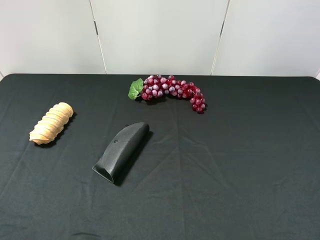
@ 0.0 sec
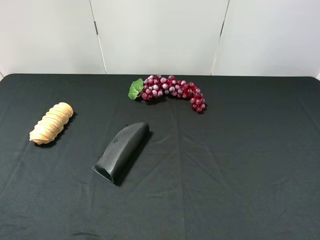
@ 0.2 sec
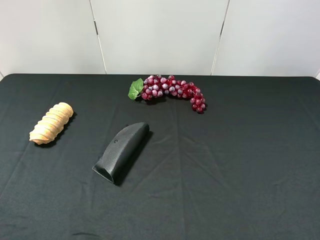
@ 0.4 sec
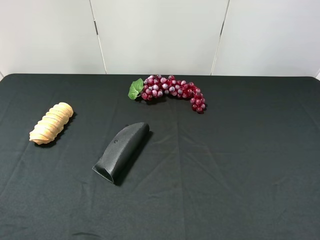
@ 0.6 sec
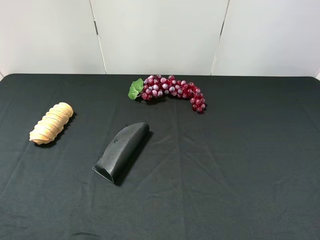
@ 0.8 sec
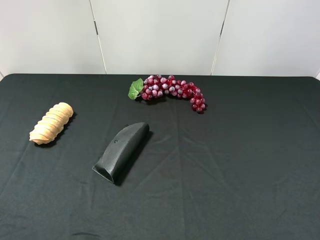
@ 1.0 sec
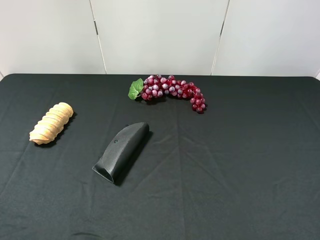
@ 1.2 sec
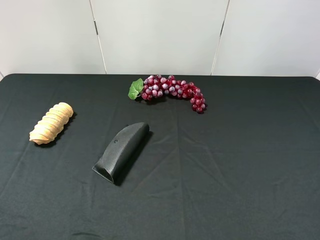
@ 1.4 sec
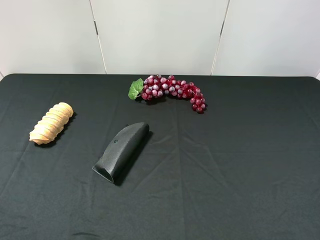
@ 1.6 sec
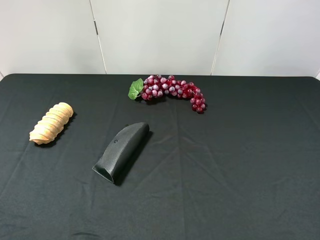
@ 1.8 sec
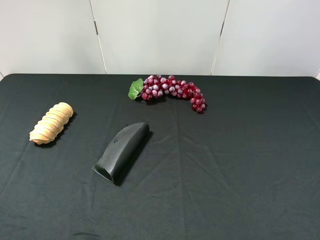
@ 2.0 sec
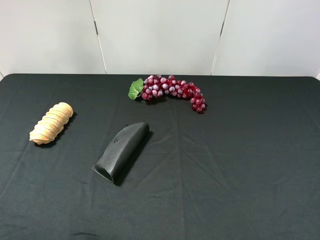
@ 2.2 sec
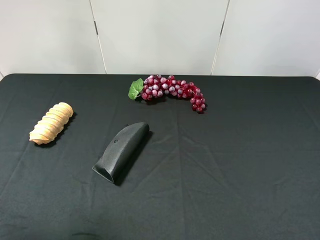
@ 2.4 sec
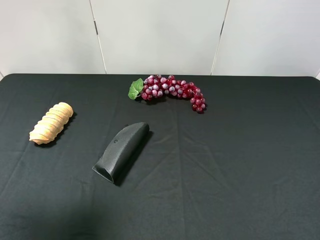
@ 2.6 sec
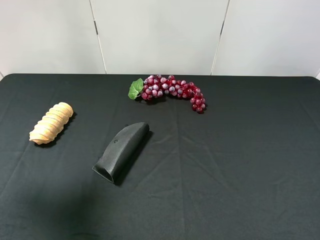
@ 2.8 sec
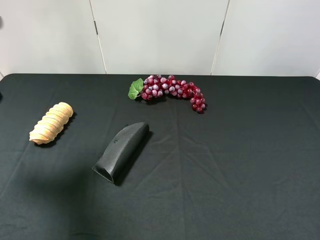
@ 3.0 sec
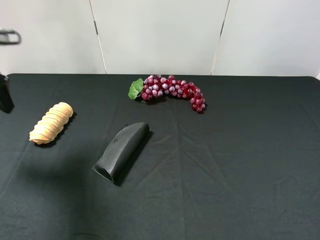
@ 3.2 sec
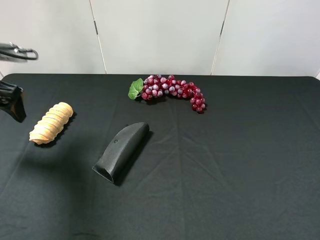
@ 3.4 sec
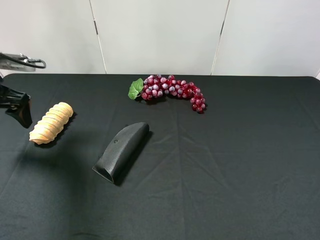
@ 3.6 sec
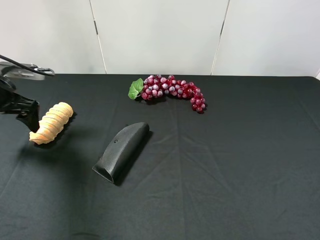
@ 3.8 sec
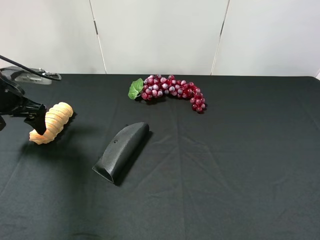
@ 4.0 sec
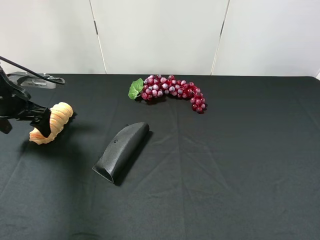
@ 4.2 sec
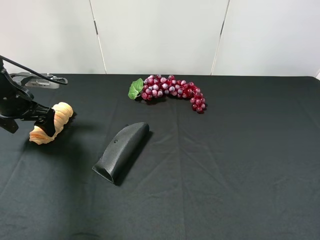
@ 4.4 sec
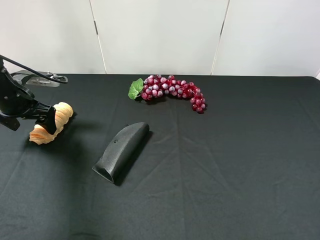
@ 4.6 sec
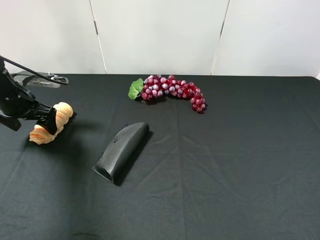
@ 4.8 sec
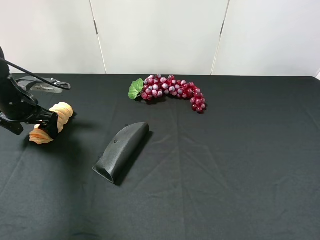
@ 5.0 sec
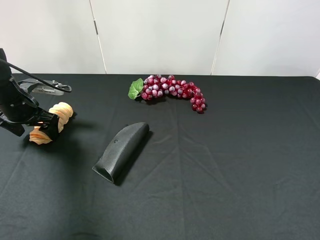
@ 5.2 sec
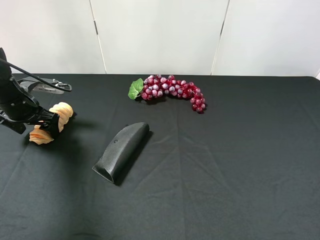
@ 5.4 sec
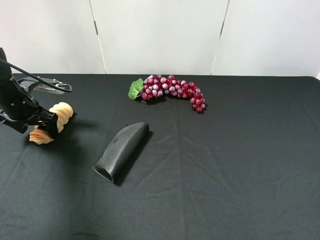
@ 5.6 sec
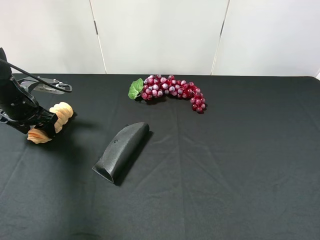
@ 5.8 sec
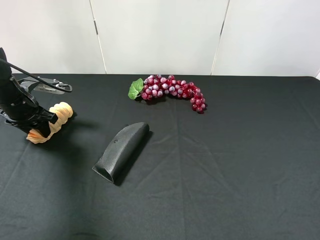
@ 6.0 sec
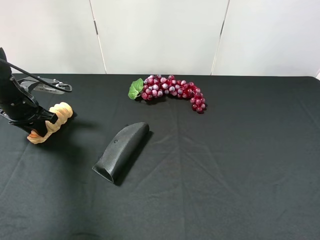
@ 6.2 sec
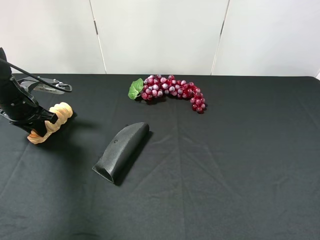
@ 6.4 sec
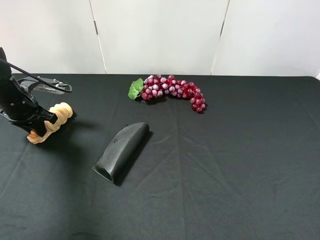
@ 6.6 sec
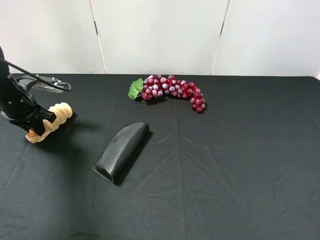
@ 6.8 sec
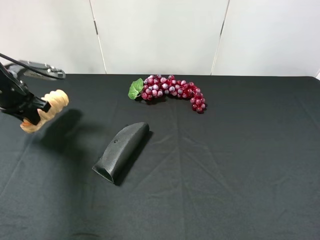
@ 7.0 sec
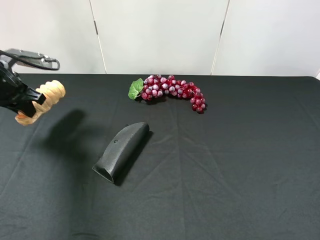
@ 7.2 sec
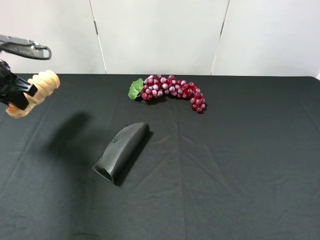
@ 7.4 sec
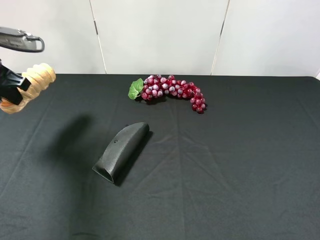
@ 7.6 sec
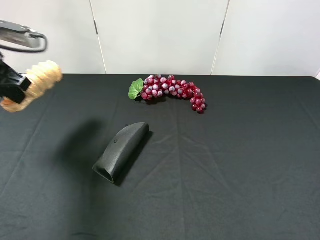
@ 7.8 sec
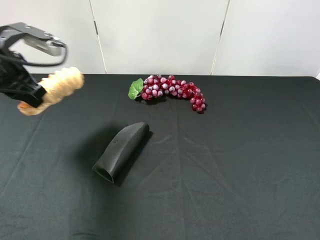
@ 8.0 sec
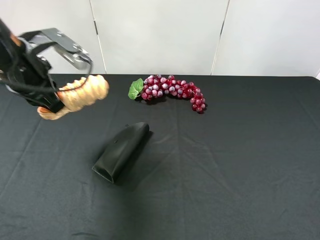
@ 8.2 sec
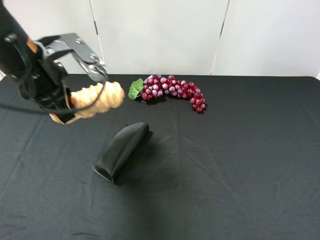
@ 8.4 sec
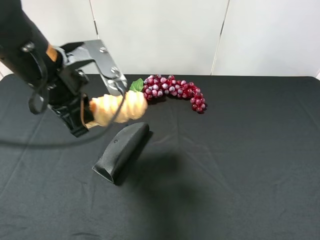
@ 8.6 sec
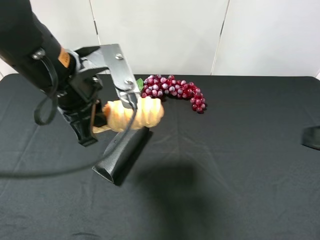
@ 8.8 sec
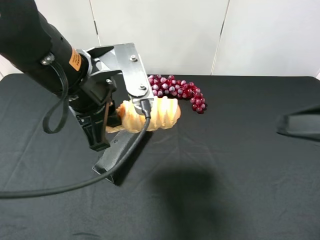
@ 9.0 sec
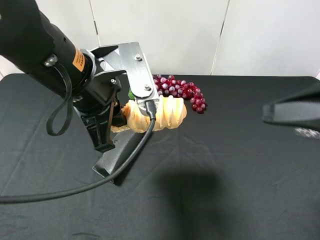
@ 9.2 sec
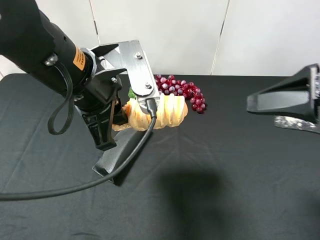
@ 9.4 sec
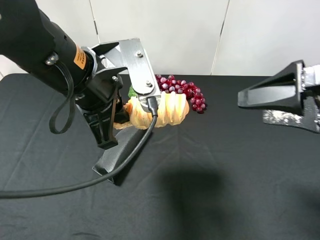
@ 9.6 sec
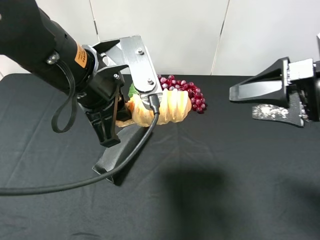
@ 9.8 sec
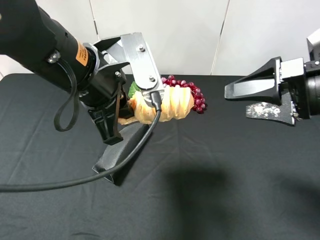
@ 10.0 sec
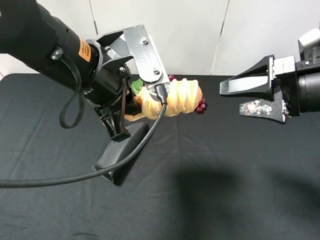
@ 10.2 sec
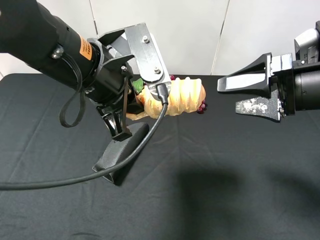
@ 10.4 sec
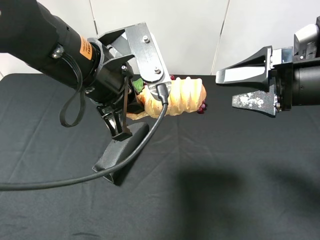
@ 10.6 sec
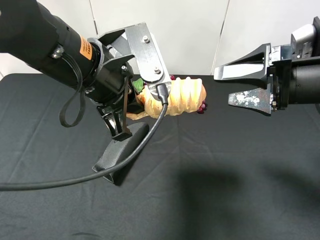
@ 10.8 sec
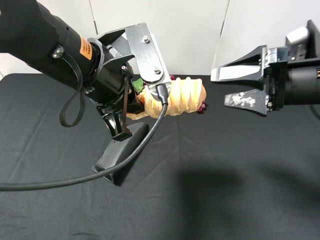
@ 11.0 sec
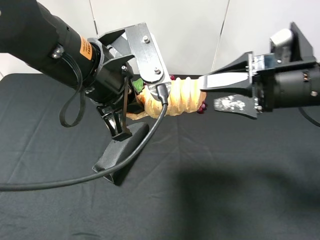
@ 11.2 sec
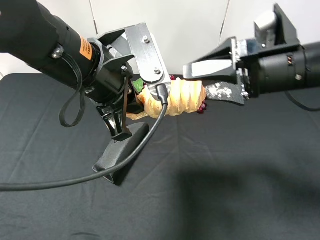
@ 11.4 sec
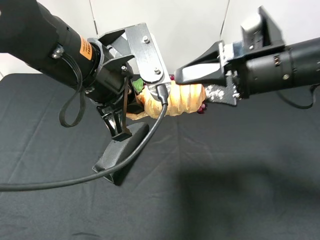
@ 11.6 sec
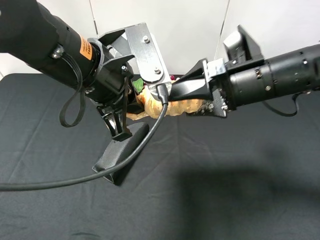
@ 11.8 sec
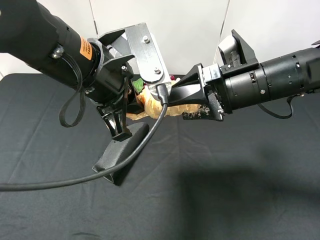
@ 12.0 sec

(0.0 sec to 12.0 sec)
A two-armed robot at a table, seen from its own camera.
Task of the whole recording: use the left gripper to pick up the item and transfer it from the left gripper to the right gripper.
1.6 sec - 3.0 sec: The left gripper travels forward by some 25 cm.
3.0 sec - 4.4 sec: The left gripper moves downward and forward, roughly 15 cm.
4.4 sec - 6.0 sec: The left gripper closes its fingers.
6.0 sec - 7.6 sec: The left gripper goes some 10 cm upward.
7.6 sec - 9.0 sec: The left gripper goes approximately 20 cm to the right. Meanwhile the right gripper shifts about 10 cm forward.
9.0 sec - 10.4 sec: The right gripper is displaced forward by roughly 10 cm.
10.4 sec - 12.0 sec: The right gripper moves to the left, approximately 10 cm.

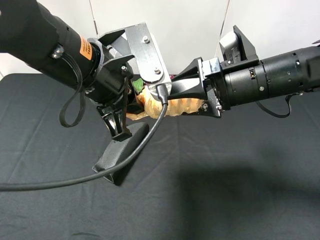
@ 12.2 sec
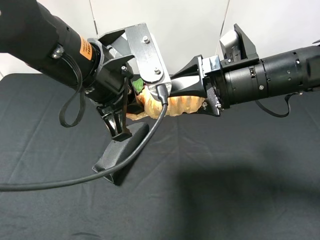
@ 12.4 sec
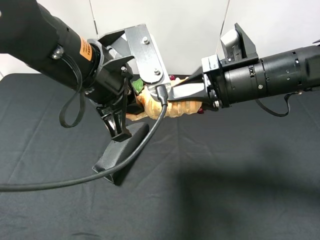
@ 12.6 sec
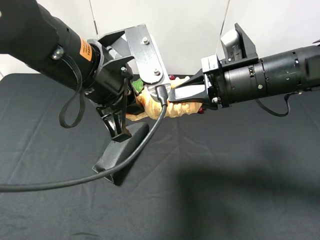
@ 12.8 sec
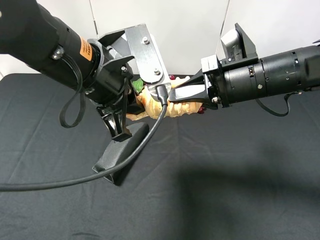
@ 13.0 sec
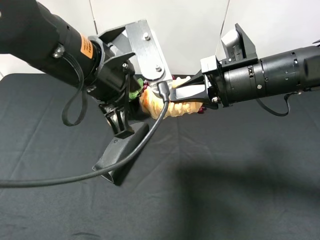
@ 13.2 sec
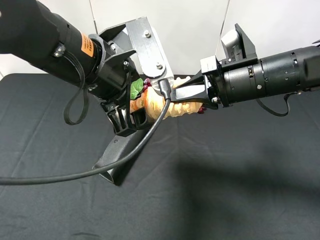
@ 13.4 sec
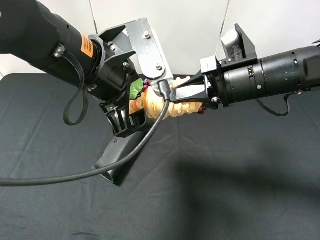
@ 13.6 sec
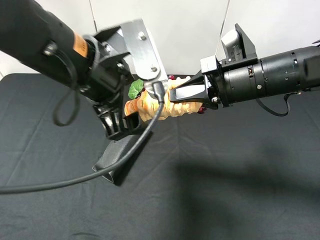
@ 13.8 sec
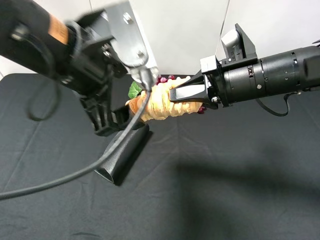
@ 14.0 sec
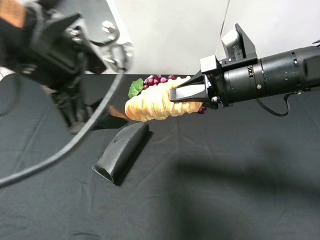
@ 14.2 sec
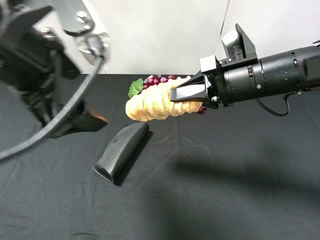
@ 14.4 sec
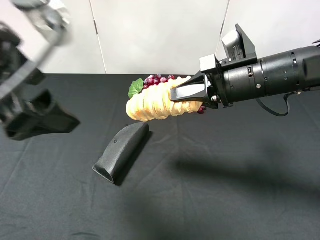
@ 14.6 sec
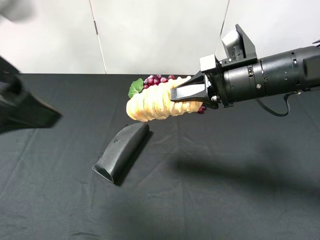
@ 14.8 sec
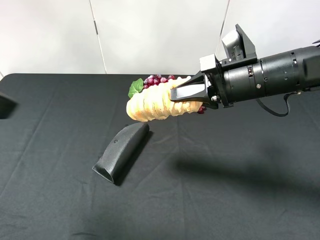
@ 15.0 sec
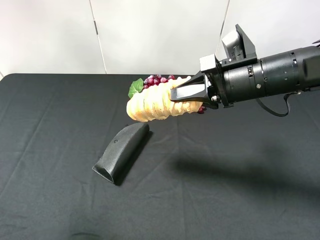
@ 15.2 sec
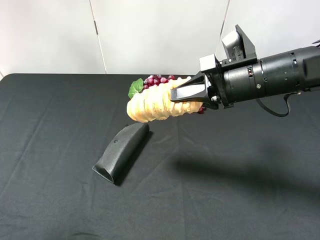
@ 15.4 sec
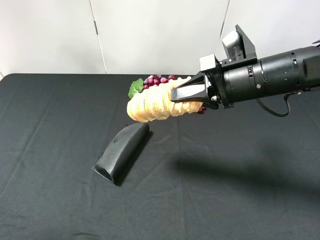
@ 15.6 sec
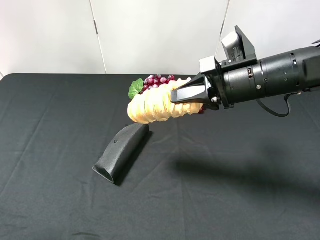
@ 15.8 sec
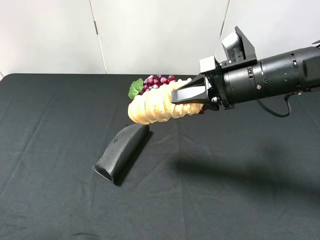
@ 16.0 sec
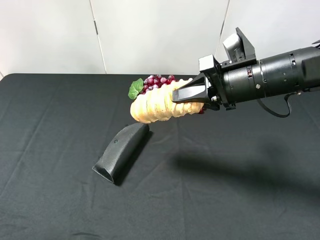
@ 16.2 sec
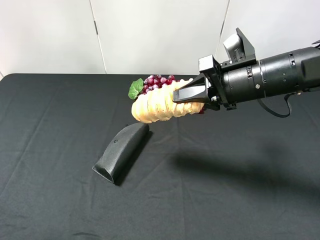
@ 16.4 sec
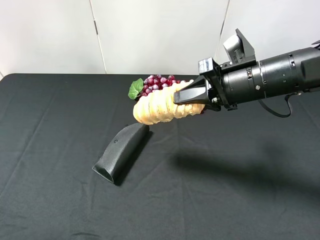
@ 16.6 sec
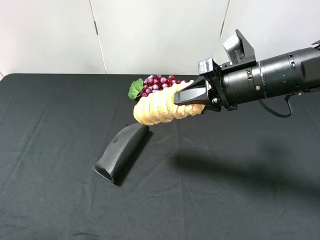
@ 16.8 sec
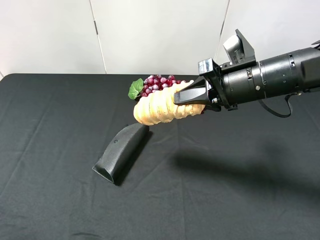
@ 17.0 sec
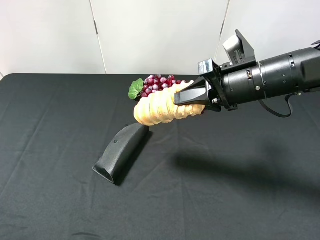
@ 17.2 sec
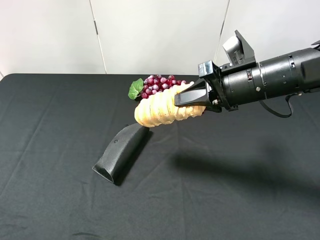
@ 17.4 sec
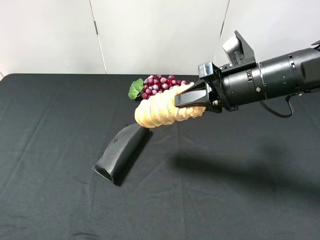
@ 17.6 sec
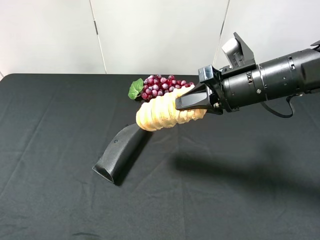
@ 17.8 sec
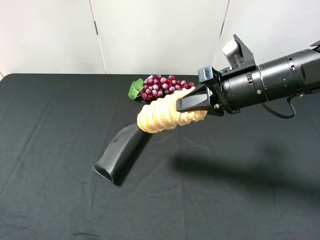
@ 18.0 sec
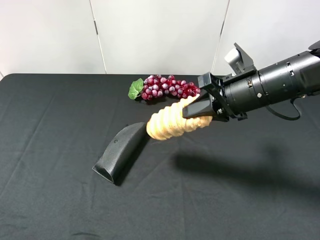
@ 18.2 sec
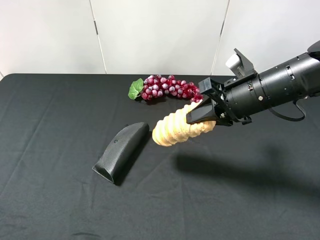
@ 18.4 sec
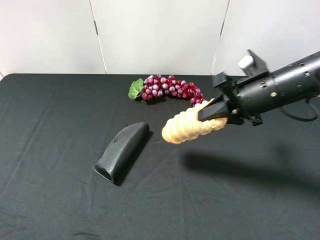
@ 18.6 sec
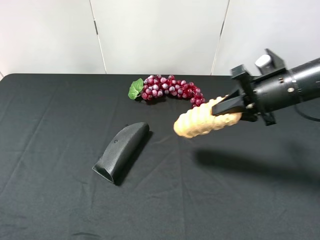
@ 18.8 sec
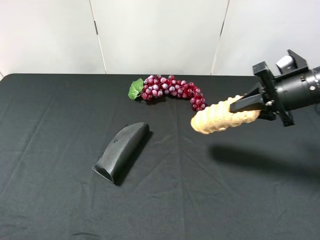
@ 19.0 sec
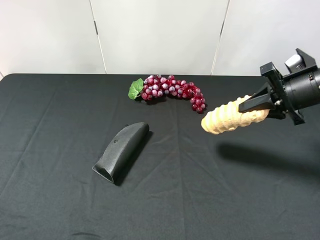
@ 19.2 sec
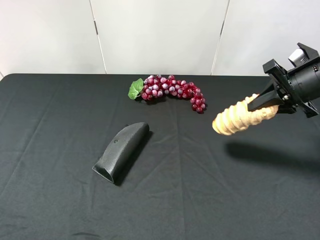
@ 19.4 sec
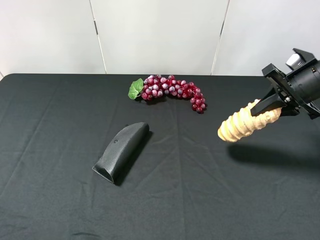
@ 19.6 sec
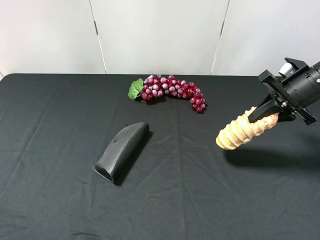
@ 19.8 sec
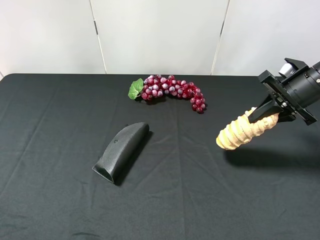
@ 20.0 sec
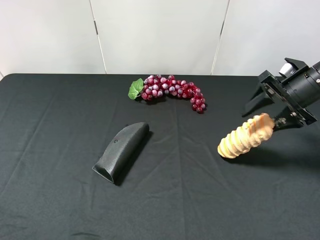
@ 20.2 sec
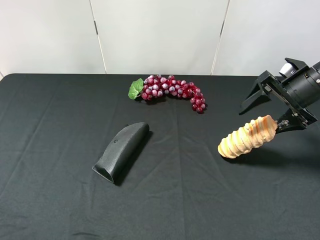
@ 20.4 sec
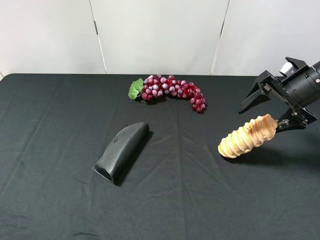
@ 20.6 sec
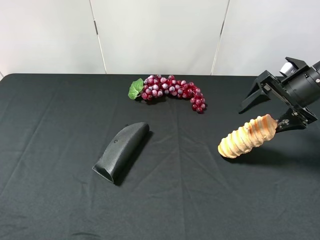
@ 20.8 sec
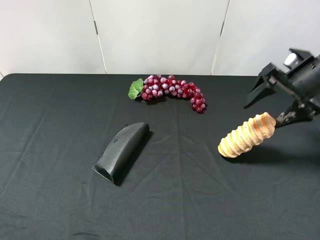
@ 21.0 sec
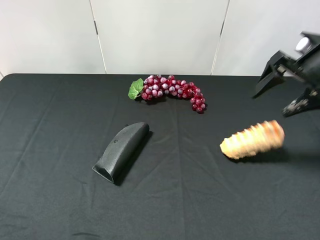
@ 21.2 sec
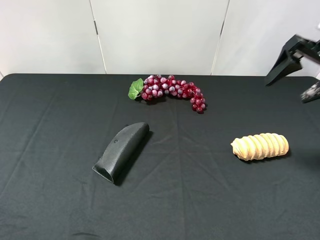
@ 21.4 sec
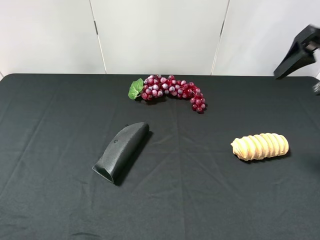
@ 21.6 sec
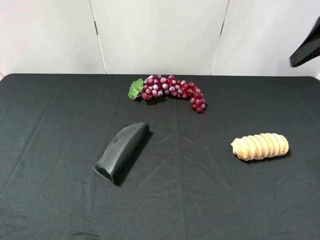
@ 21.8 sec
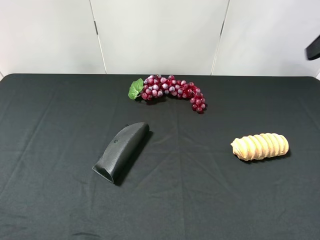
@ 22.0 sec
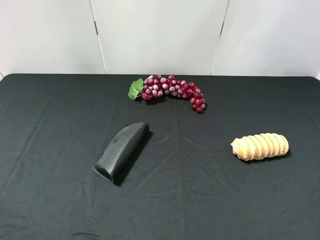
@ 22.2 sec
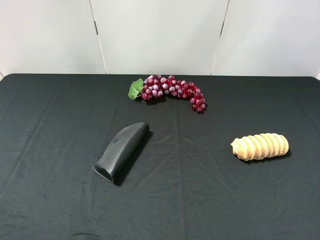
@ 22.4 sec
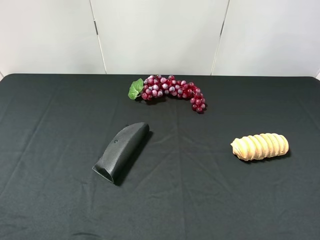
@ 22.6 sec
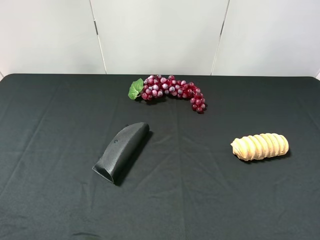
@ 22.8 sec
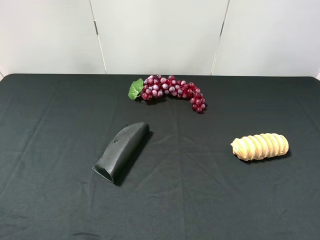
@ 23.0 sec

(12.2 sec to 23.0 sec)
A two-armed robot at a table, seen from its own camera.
Task of the whole recording: use the left gripper to pick up the item and transfer it from the left gripper to the right gripper.
12.2 sec - 13.8 sec: The left gripper opens its fingers, while the right gripper closes its fingers.
13.8 sec - 15.2 sec: The left gripper shifts some 20 cm to the left, backward and upward.
15.2 sec - 16.8 sec: The left gripper goes approximately 10 cm downward and backward.
18.4 sec - 20.0 sec: The right gripper shifts some 10 cm to the right.
20.0 sec - 21.4 sec: The right gripper travels upward by roughly 10 cm, and opens up.
21.4 sec - 23.0 sec: The right gripper is displaced backward by approximately 25 cm.
